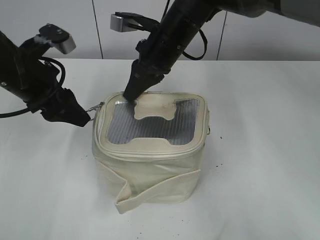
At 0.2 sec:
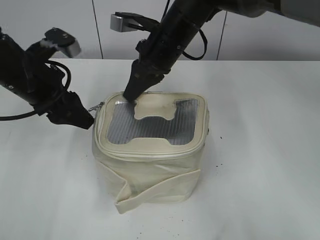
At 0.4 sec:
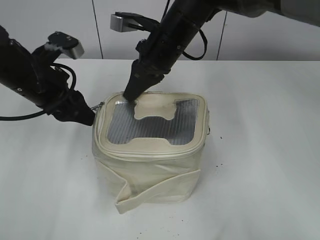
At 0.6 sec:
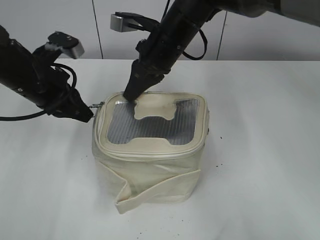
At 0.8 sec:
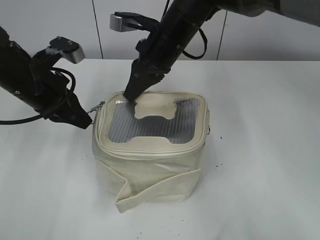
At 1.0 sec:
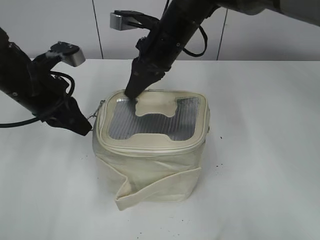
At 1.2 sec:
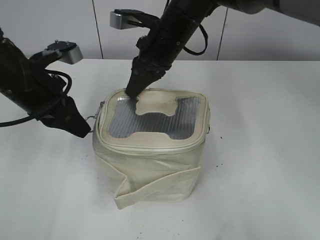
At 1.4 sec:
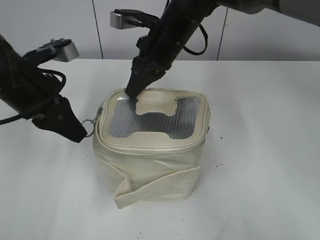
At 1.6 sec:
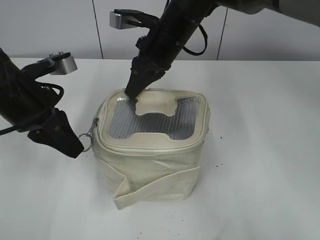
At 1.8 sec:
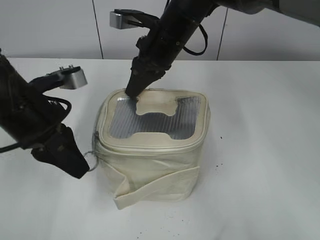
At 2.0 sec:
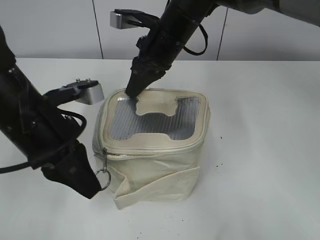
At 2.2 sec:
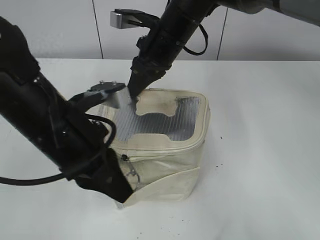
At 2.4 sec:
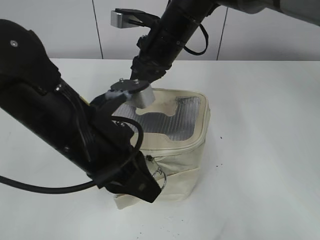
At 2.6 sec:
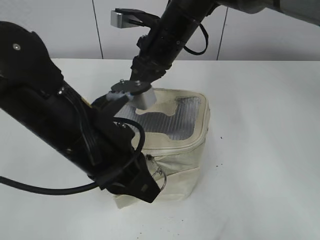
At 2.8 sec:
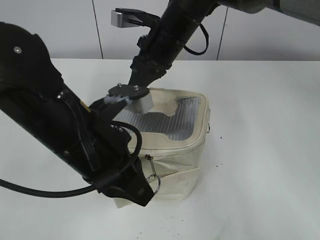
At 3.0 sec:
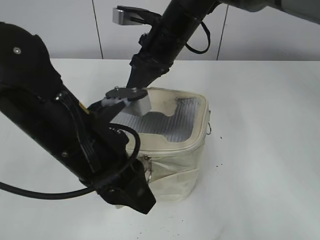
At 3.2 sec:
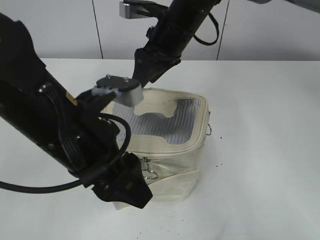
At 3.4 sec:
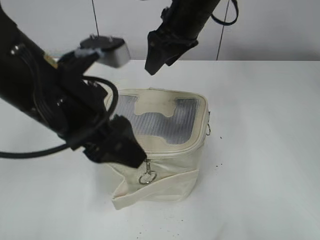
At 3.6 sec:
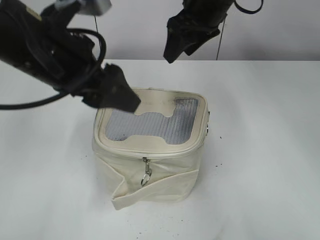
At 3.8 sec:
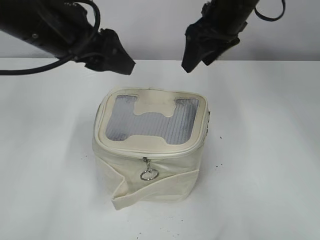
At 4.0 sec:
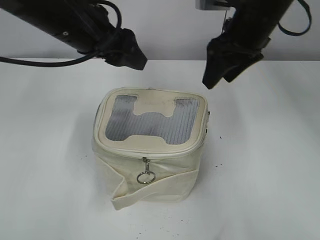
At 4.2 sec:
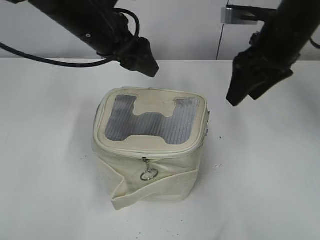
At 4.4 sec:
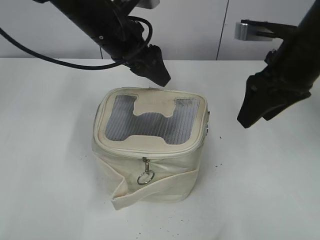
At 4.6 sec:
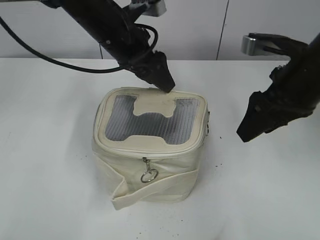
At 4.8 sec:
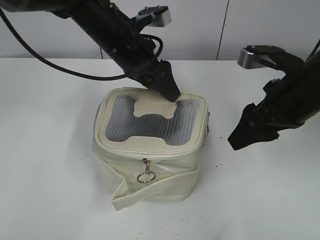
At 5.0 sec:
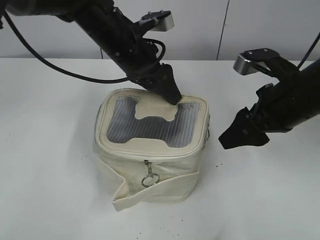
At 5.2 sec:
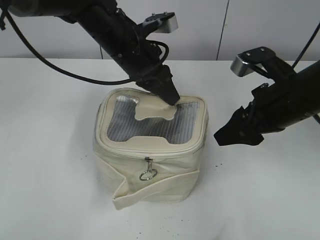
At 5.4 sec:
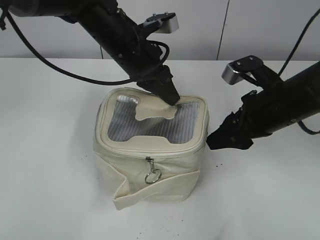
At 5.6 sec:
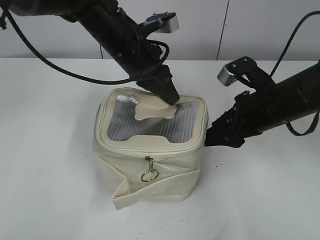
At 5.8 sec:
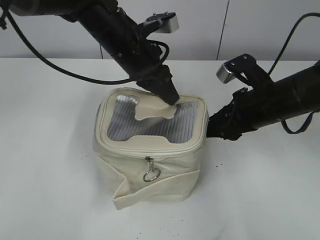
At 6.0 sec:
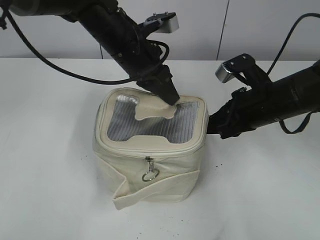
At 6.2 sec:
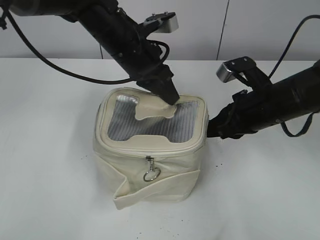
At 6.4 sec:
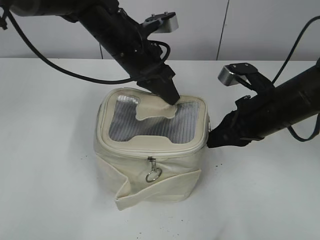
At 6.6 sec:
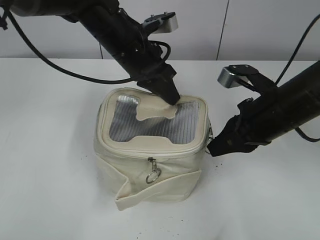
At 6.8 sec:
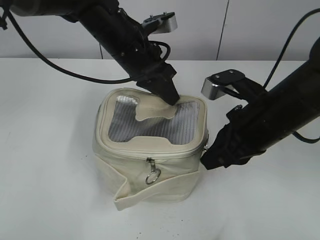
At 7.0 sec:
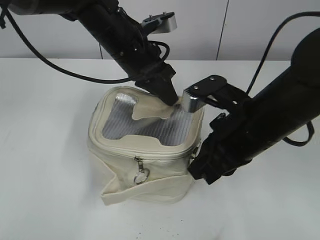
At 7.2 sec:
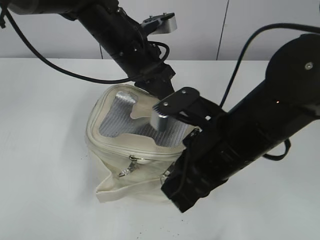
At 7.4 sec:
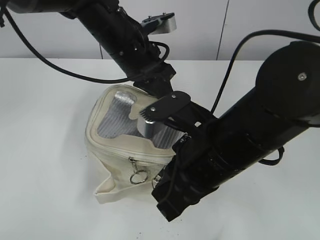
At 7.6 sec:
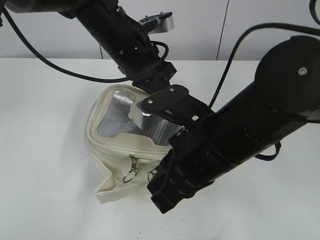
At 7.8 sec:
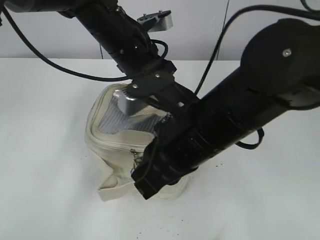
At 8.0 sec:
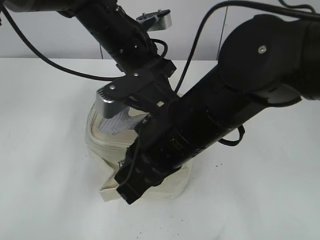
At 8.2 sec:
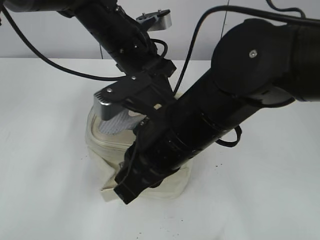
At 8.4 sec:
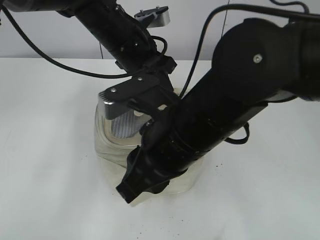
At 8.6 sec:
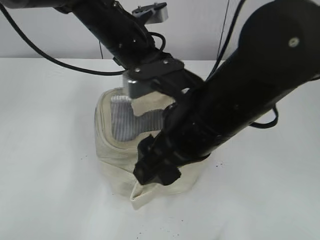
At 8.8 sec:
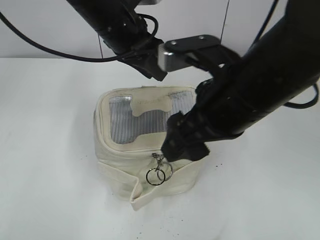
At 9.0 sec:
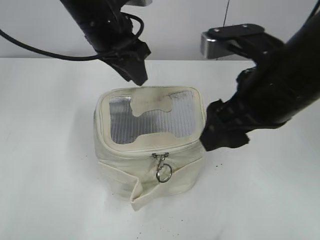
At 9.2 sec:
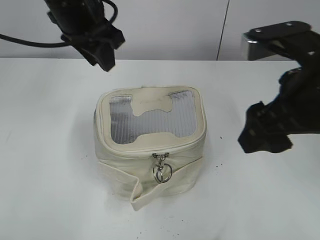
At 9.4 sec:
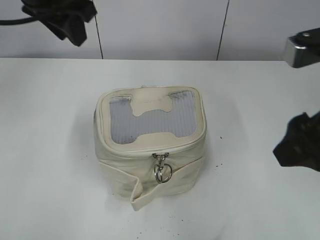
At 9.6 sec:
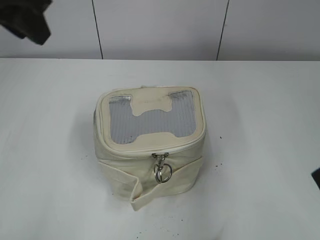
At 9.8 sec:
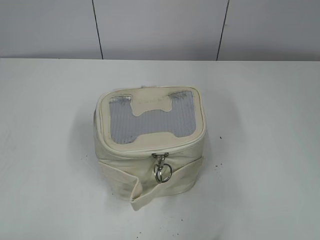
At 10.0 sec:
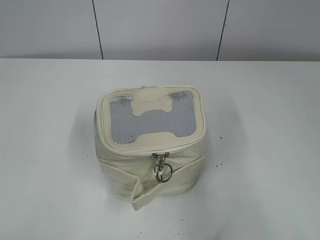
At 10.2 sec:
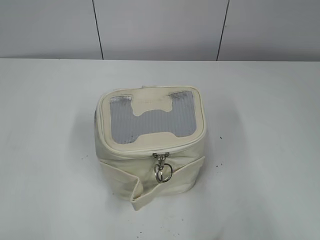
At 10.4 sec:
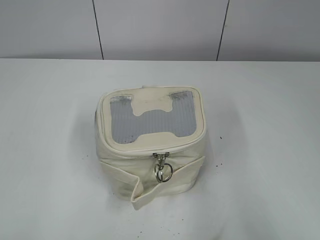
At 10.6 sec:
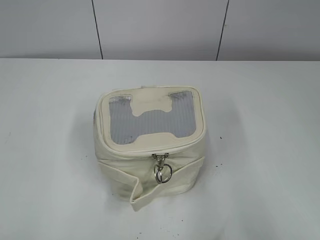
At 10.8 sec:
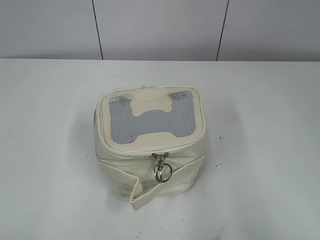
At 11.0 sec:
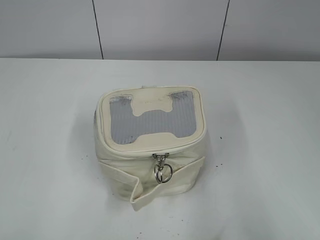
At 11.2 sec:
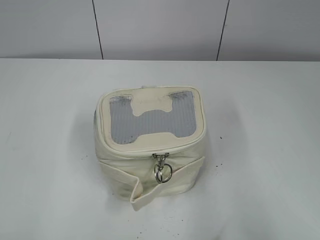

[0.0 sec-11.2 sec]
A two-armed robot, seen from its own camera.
Step, 0.0 sec to 3.0 sec: Zip up the bag with your left hand.
Step, 3.4 sec to 8.4 sec: Zip up the bag with your right hand.
0.0 sec to 1.6 sec: The left gripper closes up.
1.6 sec to 3.2 sec: The right gripper opens; the left gripper travels to the right and backward by approximately 15 cm, and opens up.
3.2 sec to 4.8 sec: The right gripper goes about 20 cm to the right and backward; the left gripper heads forward, covering some 20 cm.
4.8 sec to 6.4 sec: The left gripper closes. The right gripper travels downward by roughly 5 cm, and closes its fingers.
6.4 sec to 8.0 sec: The right gripper heads to the left and backward, covering about 20 cm.
8.0 sec to 9.6 sec: The left gripper moves upward, to the left and backward, some 20 cm, and opens. The right gripper is displaced to the right and upward by some 20 cm, and opens.
9.6 sec to 11.2 sec: The right gripper travels backward and to the right by some 15 cm, while the left gripper shifts some 30 cm backward and to the left.

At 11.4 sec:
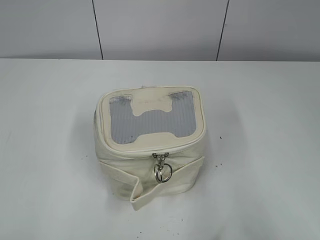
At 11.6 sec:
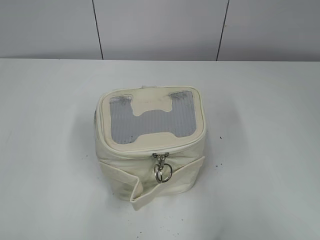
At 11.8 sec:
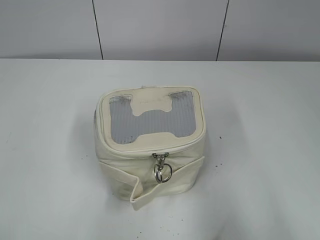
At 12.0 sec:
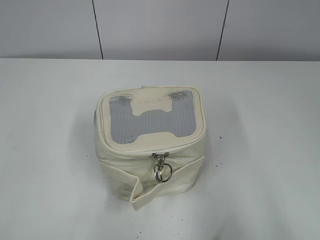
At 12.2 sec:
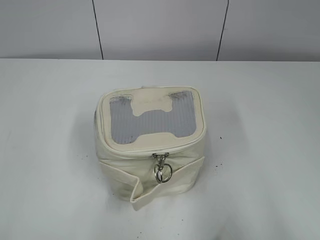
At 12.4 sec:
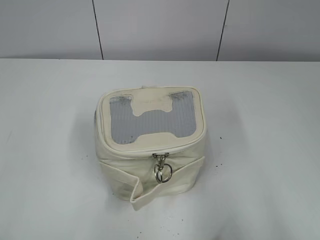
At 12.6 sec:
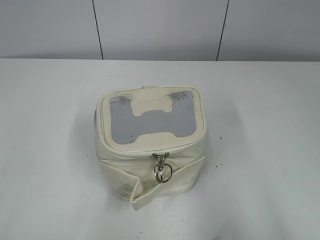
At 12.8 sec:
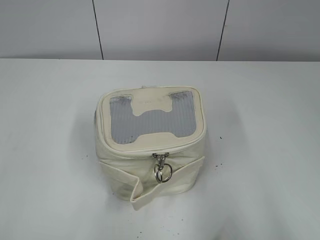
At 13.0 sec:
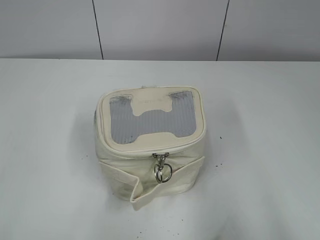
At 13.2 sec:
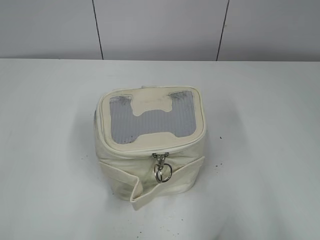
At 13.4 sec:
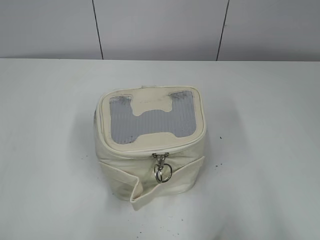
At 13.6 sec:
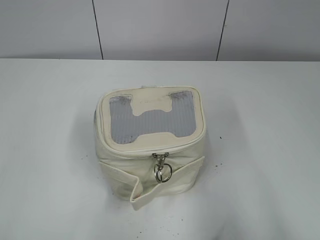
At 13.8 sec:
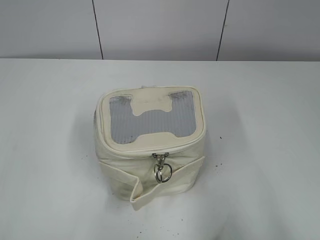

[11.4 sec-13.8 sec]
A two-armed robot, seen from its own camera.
12.6 sec to 13.8 sec: Both grippers stay about where they are.
